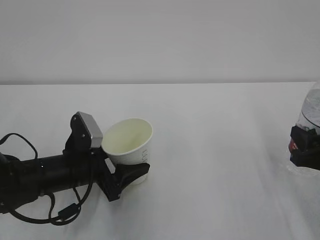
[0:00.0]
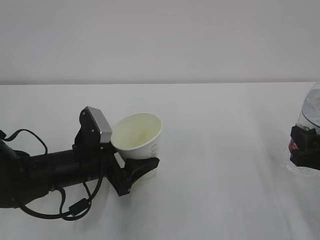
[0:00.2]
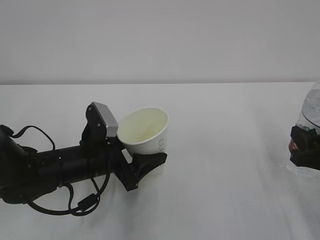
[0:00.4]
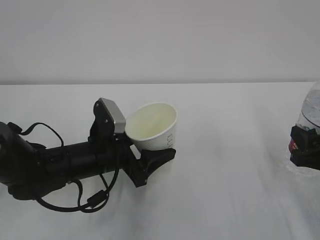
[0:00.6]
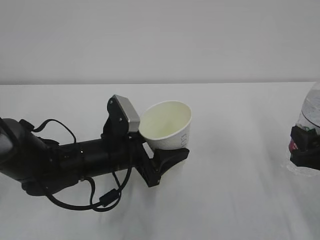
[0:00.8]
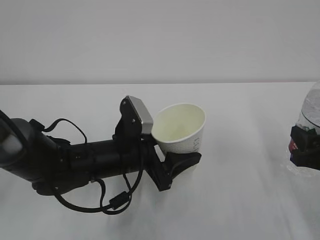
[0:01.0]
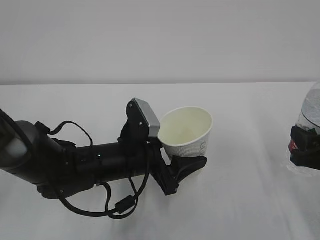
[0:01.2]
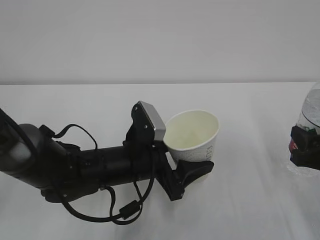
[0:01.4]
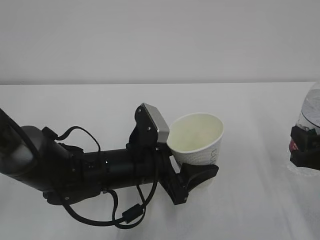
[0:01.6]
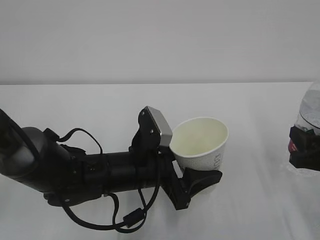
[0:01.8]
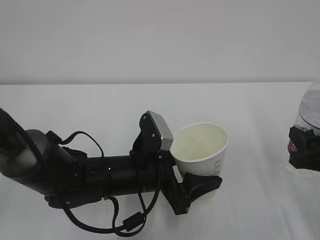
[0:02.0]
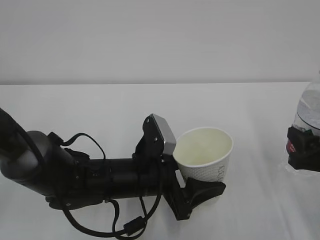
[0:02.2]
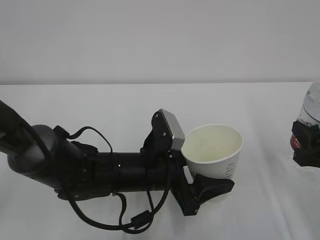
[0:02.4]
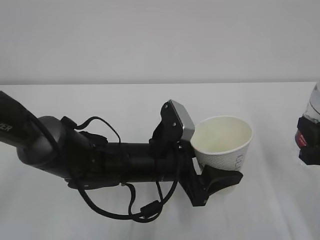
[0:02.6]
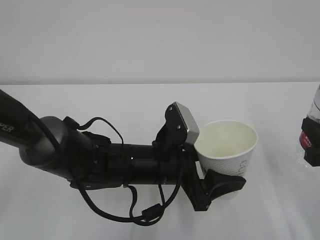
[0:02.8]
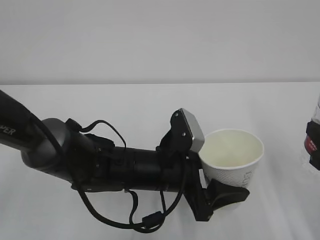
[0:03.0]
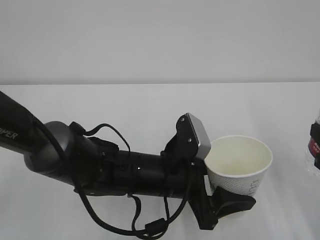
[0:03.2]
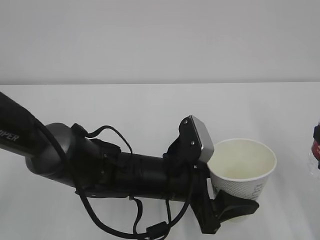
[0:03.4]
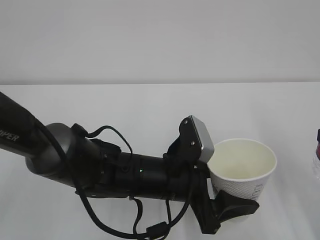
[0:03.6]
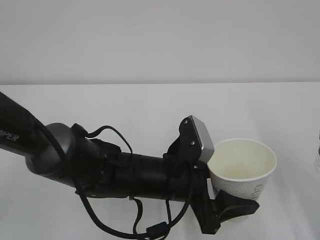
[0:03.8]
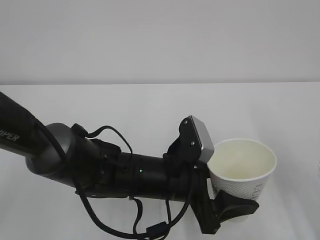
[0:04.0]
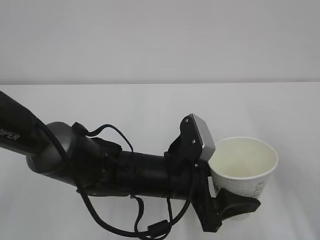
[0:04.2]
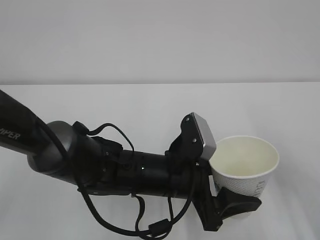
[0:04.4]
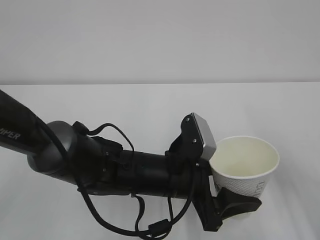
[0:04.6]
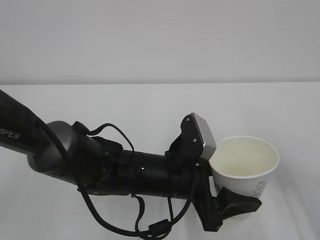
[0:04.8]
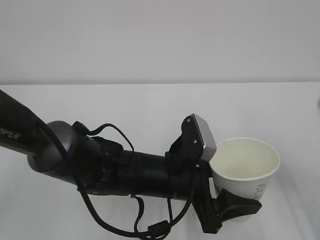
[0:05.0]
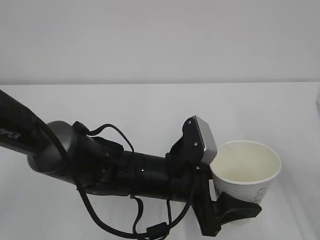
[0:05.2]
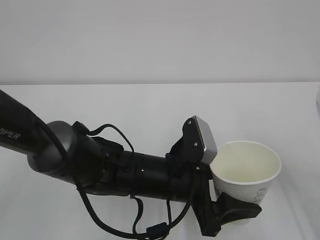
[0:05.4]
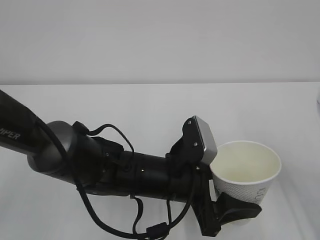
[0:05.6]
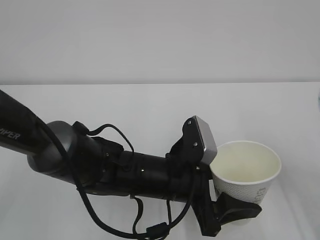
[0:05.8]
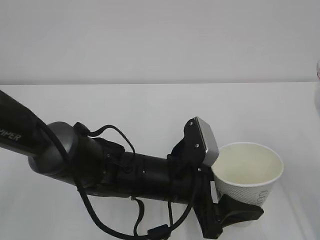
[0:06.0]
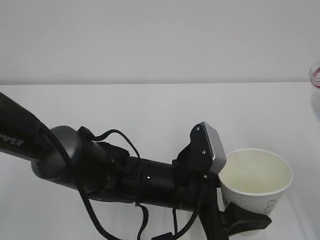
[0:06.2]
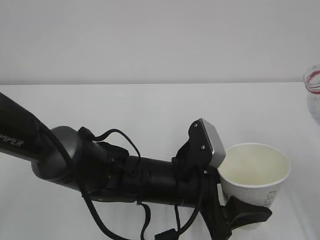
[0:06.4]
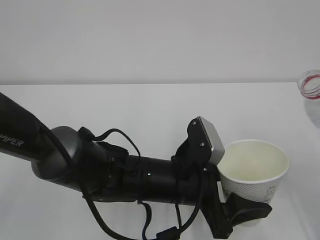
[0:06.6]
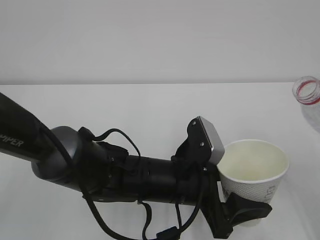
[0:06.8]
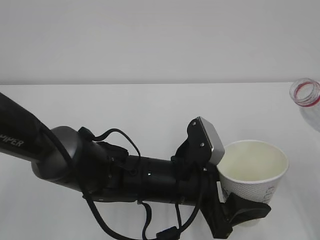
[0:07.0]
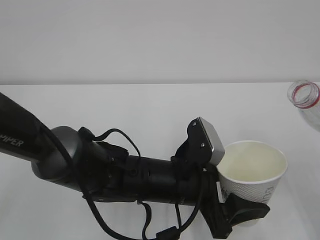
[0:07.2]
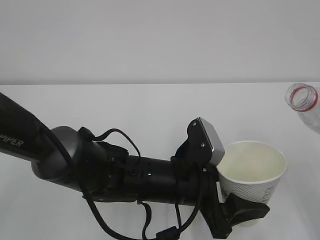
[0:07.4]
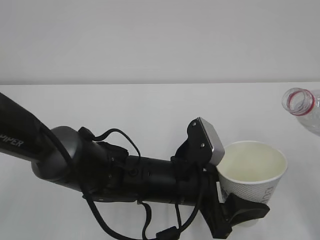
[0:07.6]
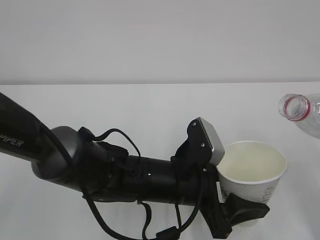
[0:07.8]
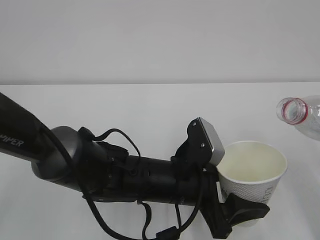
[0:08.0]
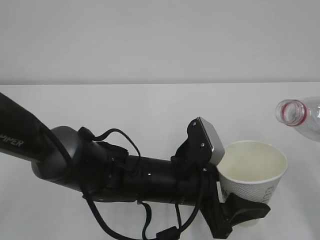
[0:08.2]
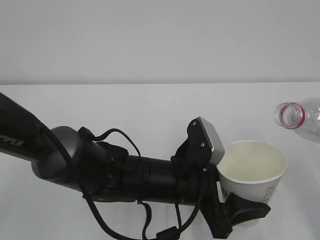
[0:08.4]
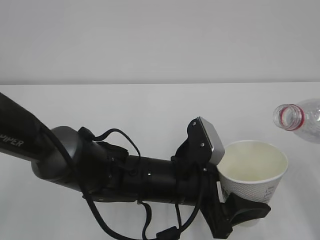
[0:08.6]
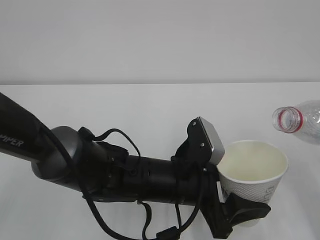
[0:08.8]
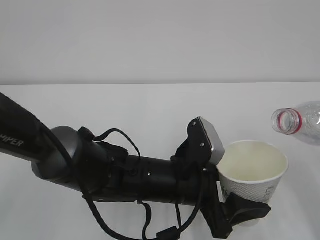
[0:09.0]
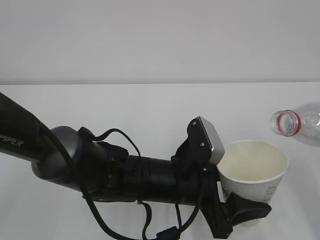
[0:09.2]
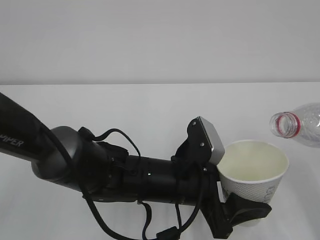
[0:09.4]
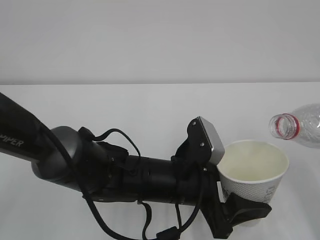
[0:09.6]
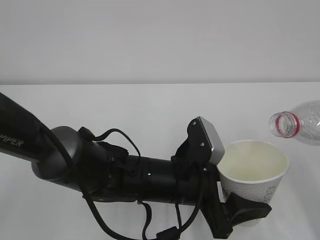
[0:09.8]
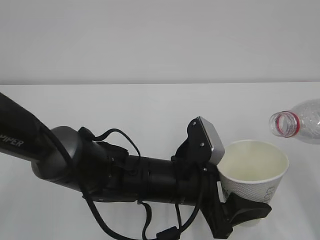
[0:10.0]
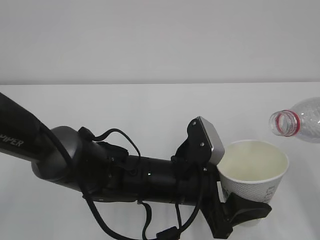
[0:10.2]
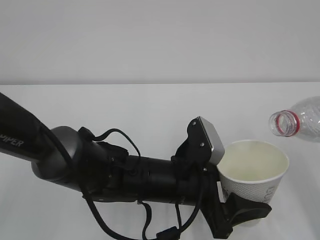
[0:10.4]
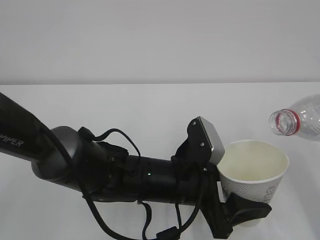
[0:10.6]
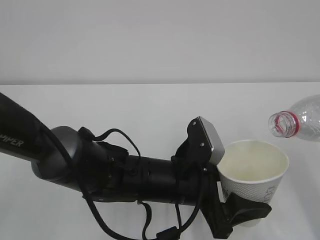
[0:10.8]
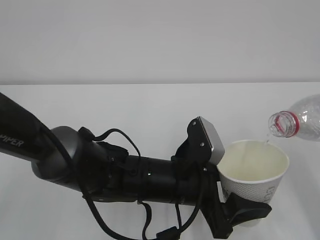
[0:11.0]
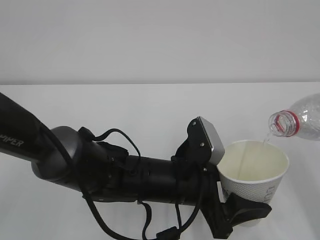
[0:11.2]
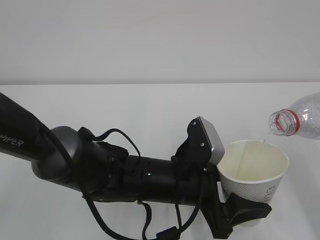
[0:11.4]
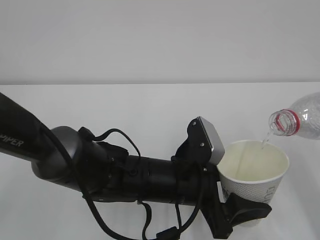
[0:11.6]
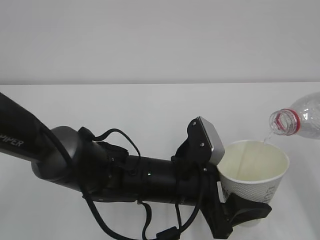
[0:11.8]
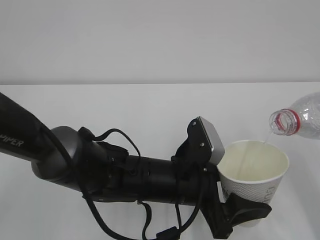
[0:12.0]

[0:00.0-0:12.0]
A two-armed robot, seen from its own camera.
0:00.0 to 0:01.6: The left gripper shifts roughly 10 cm to the right.
0:01.6 to 0:03.0: The right gripper changes place by about 5 cm.
0:03.0 to 0:04.4: The grippers make only small movements.
0:07.6 to 0:09.0: The grippers move only a little.
0:10.4 to 0:12.0: Neither gripper changes place.

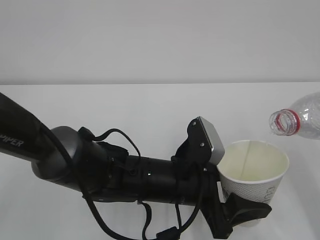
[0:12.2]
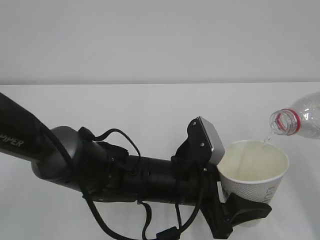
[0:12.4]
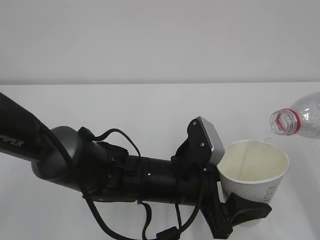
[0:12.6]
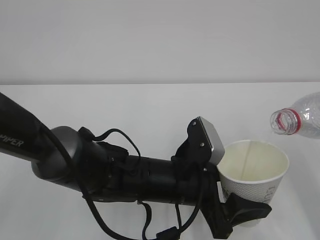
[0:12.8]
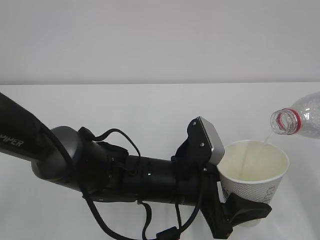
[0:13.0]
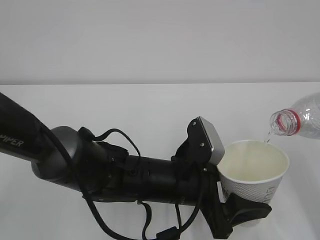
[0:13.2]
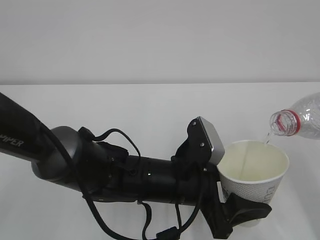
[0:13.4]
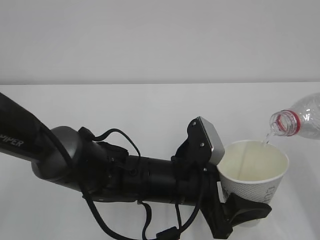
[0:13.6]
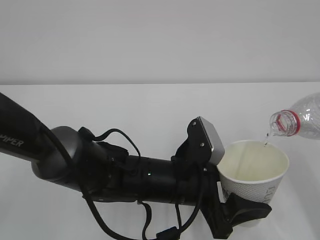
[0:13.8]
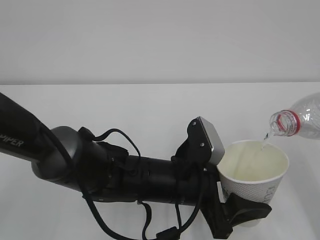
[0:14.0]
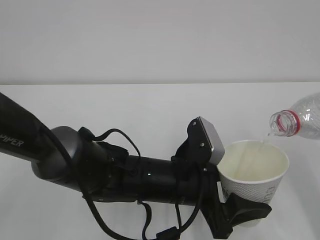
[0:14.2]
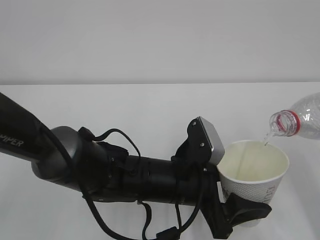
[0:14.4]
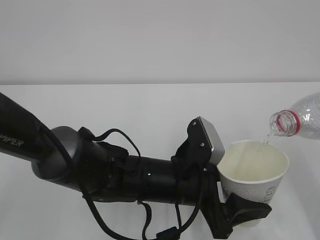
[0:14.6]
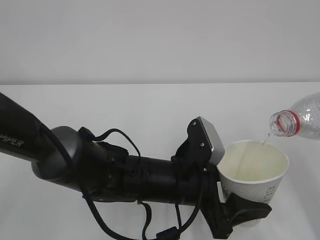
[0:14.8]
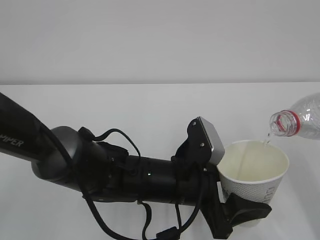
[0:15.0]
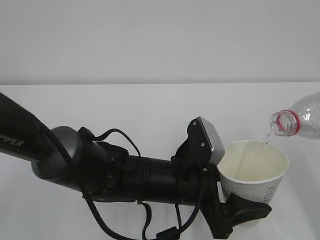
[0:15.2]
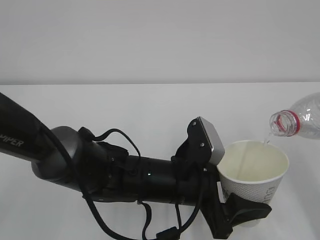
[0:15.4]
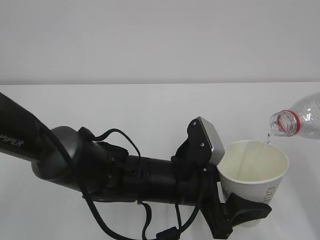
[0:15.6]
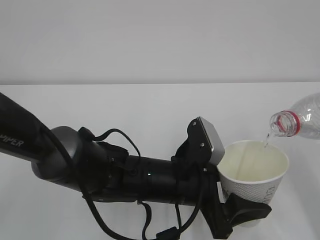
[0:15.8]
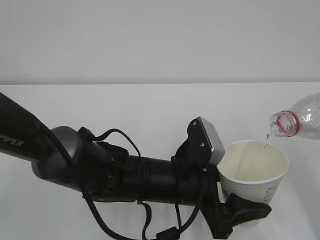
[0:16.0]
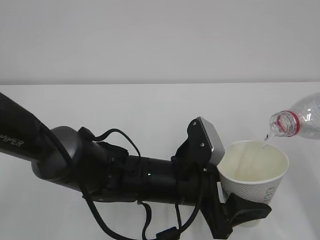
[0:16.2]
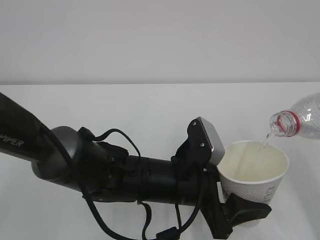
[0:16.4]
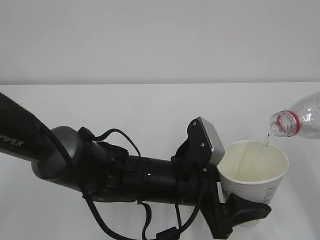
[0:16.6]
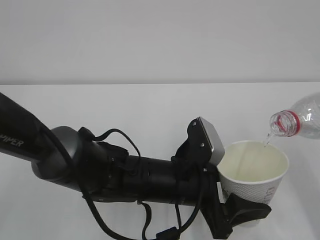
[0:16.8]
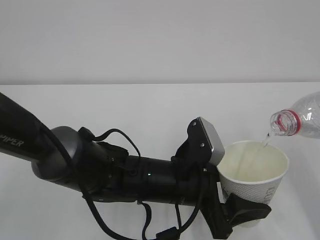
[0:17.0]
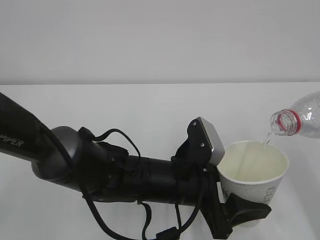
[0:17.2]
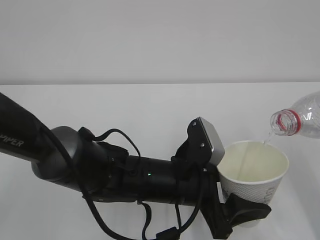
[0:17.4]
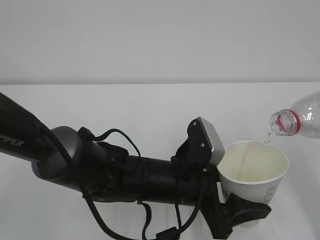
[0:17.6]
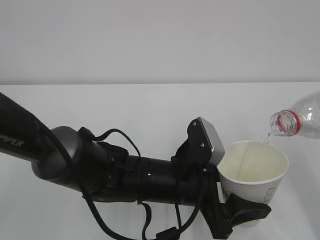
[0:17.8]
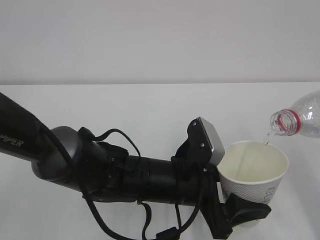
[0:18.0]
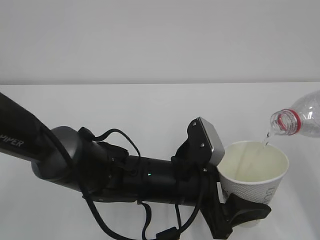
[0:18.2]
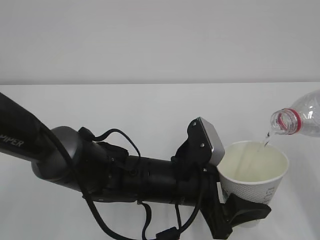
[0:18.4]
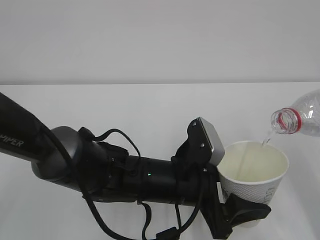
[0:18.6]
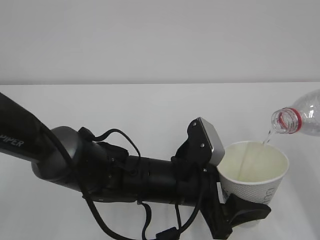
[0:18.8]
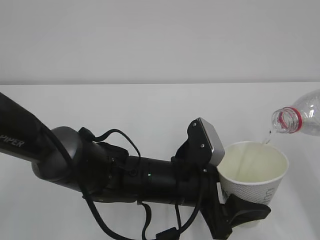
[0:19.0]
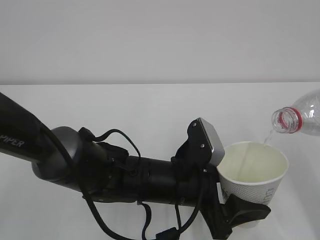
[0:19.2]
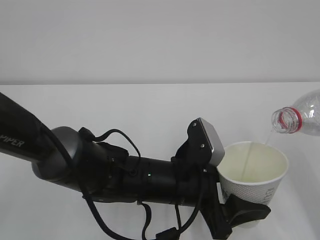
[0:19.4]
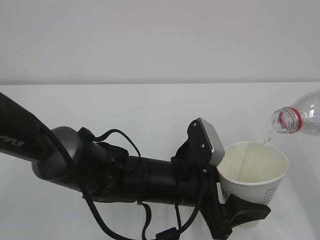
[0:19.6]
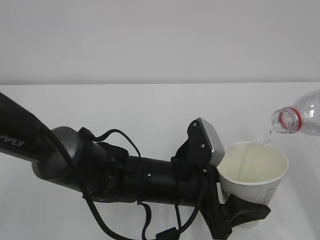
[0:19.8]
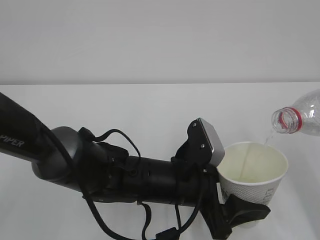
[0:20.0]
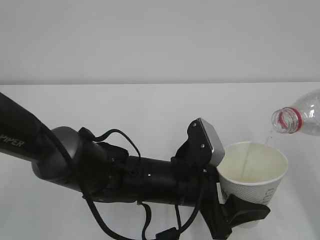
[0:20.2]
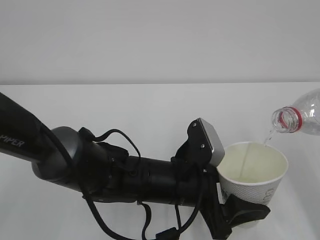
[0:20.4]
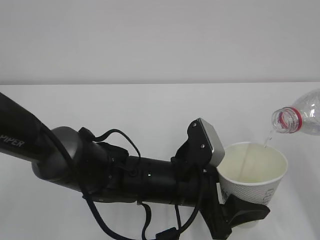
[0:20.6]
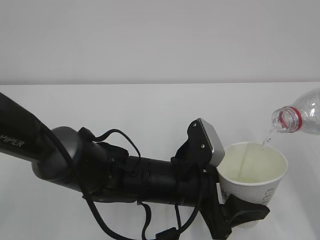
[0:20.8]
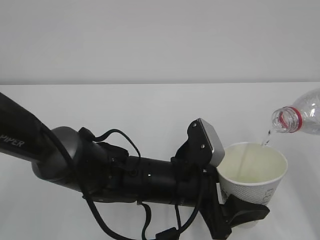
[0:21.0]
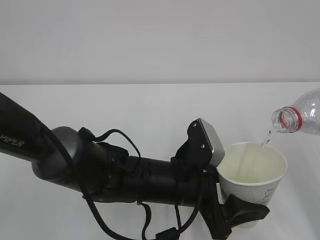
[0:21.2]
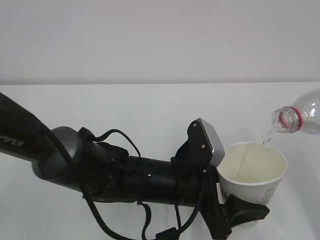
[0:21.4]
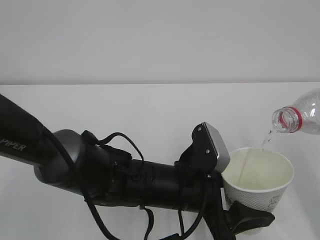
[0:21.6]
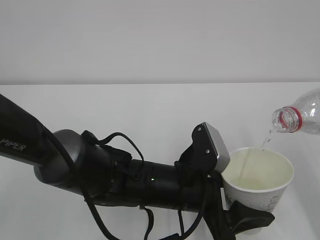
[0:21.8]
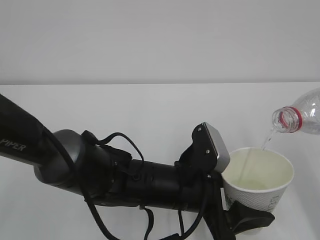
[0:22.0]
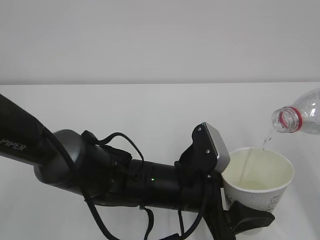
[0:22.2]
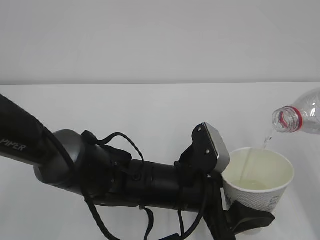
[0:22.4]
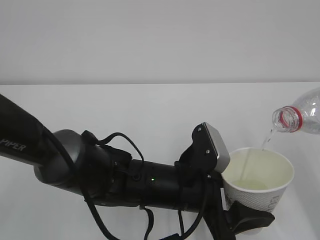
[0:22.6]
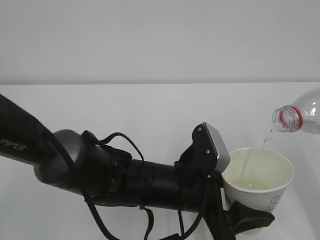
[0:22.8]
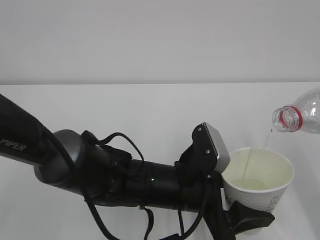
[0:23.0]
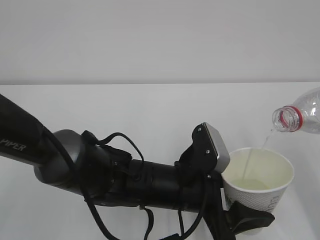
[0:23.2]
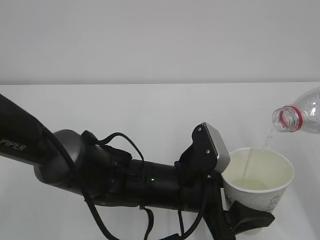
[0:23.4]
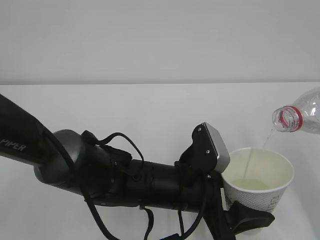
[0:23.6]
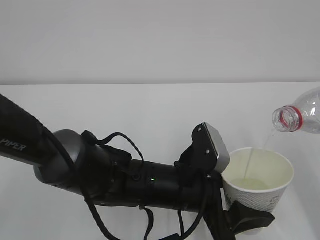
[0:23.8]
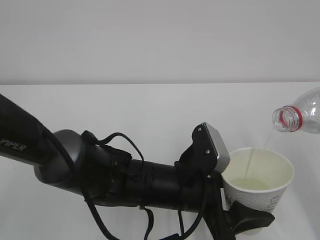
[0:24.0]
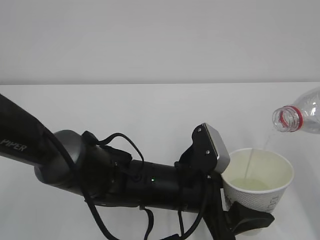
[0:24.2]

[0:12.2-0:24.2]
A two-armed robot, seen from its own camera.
0:12.2 to 0:24.2: Both grippers stay put.
